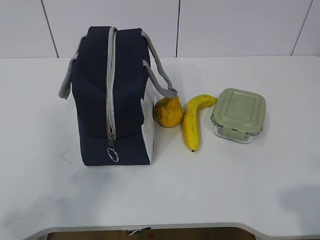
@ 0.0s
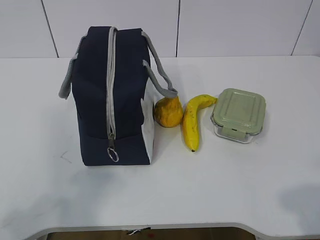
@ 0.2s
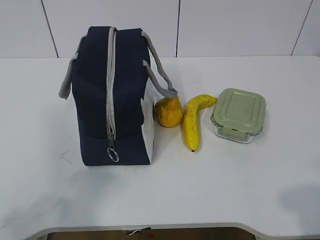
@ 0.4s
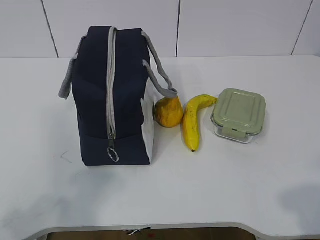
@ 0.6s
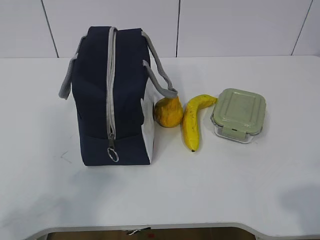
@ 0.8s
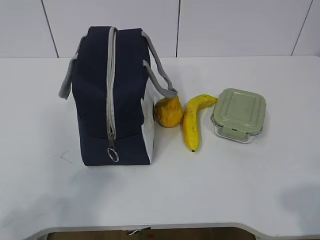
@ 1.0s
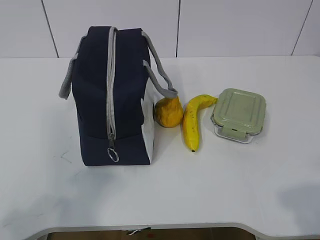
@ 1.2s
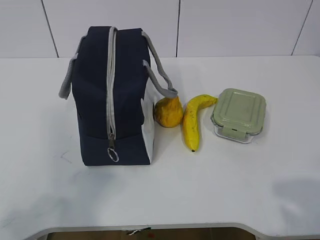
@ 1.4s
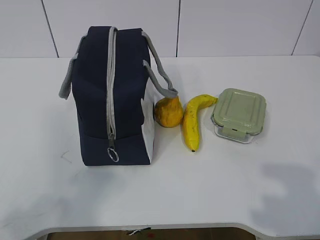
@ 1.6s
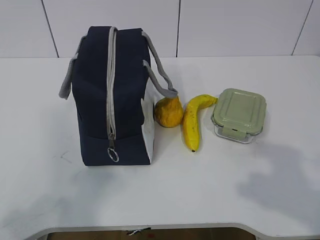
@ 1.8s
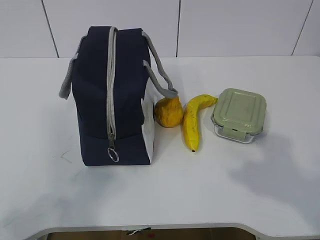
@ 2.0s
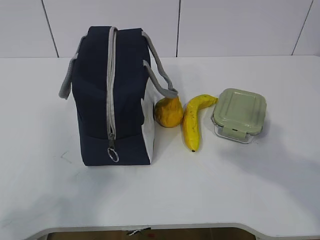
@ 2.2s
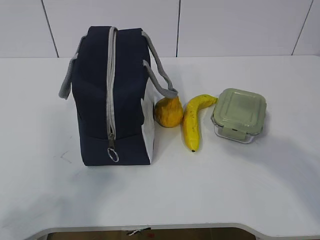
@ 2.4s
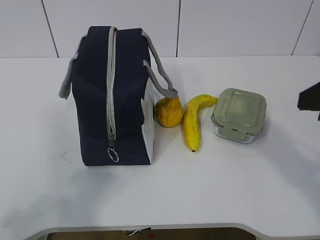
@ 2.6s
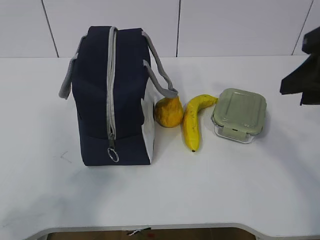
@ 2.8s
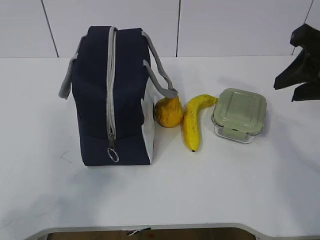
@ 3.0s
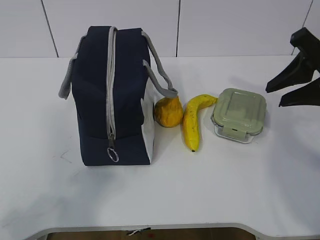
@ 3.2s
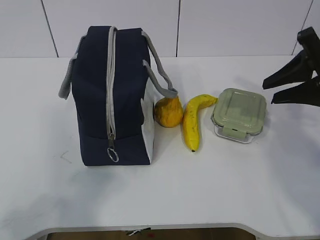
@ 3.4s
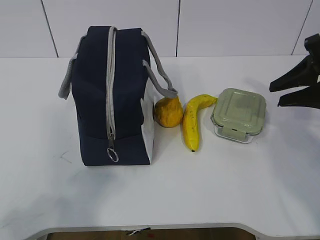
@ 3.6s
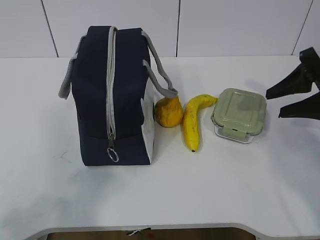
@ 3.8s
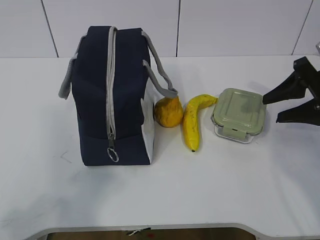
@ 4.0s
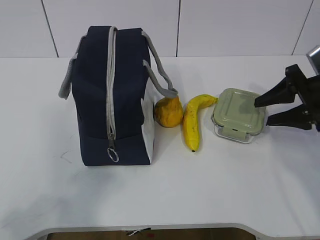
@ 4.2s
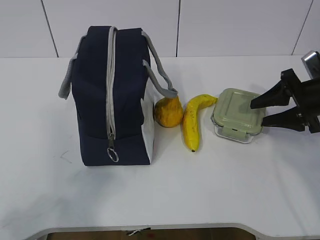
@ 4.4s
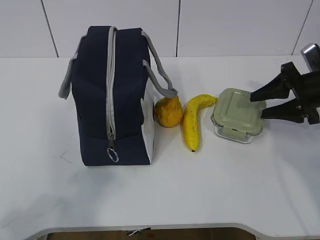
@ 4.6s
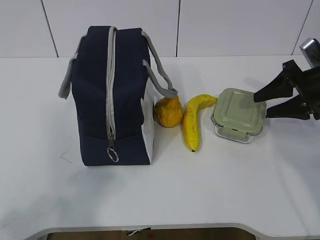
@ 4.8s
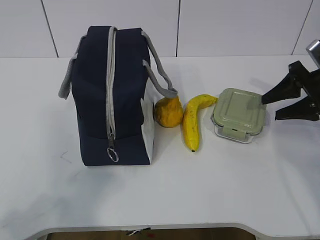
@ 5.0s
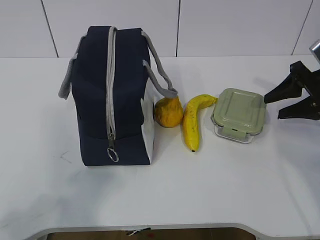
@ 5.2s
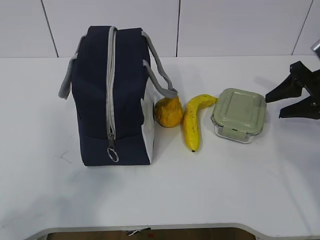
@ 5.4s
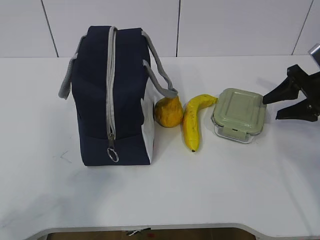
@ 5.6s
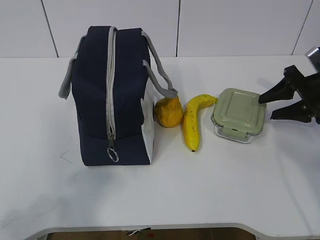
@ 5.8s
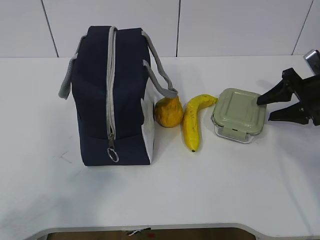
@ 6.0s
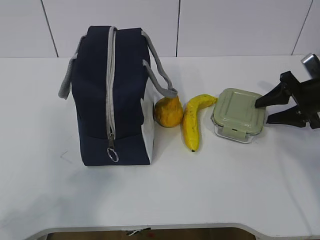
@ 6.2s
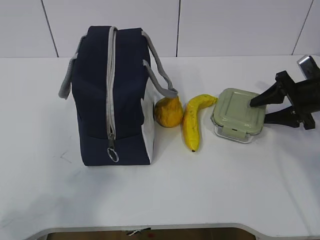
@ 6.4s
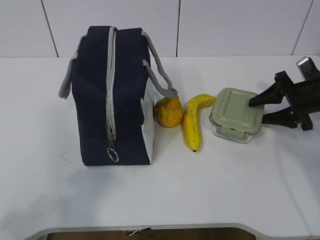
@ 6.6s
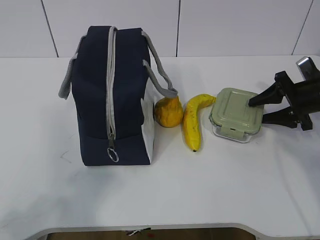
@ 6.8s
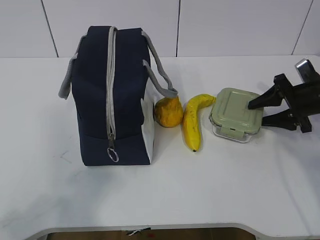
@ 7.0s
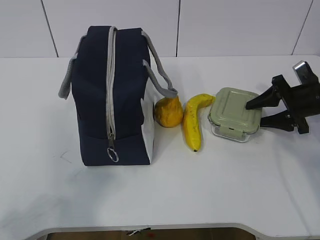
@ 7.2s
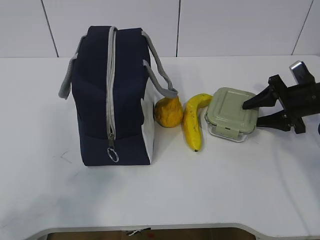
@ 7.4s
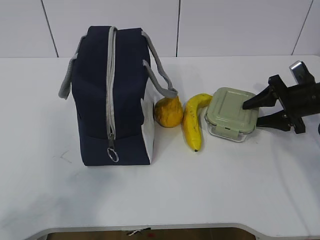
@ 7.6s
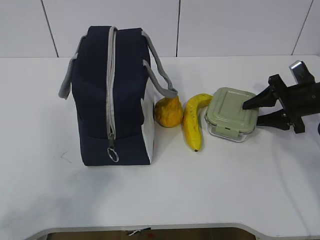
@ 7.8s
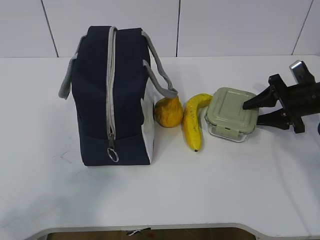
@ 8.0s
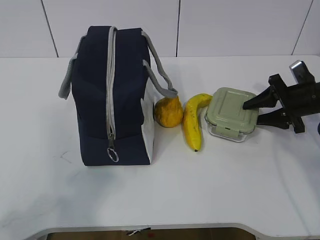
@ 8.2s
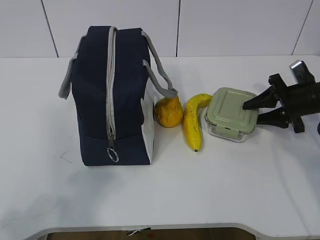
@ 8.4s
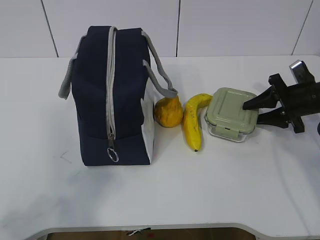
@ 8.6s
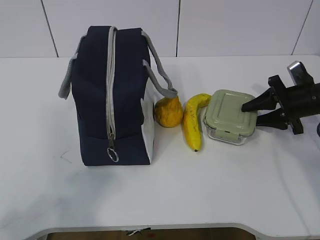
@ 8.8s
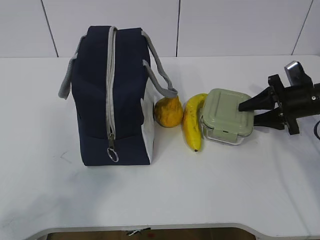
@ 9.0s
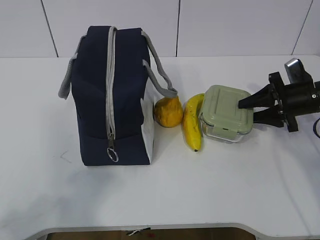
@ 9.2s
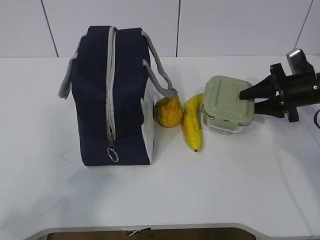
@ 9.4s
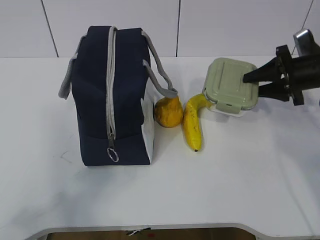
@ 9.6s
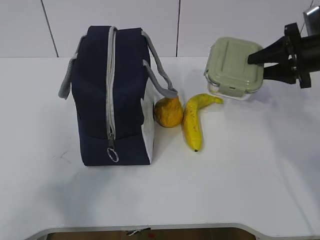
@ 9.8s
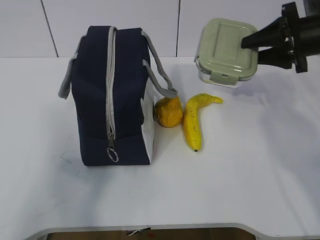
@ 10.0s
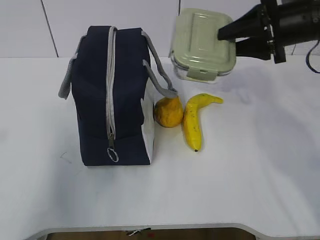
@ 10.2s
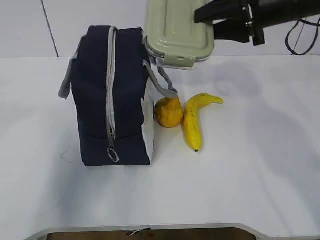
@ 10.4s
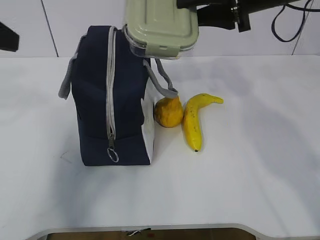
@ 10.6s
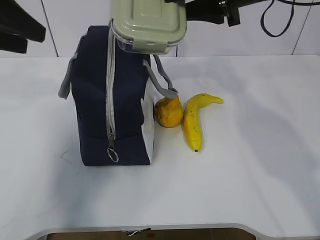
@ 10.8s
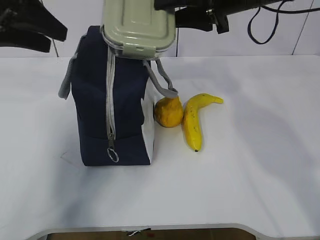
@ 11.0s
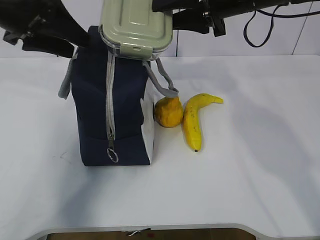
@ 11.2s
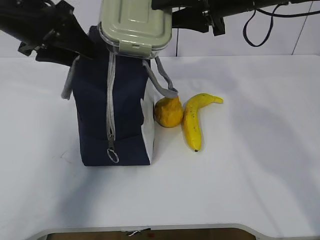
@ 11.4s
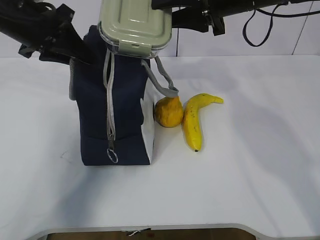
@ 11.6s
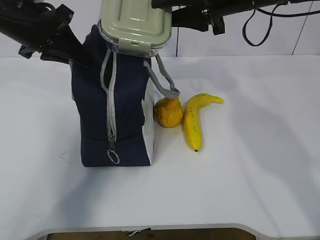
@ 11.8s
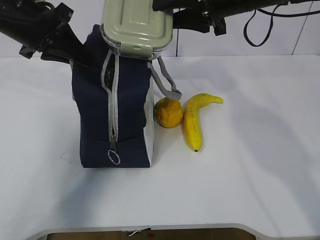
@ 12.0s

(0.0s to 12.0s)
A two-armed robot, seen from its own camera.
Step, 0.0s - 7.2s: Grab the lunch box with your right hand.
Step, 7.4s - 9.8s: Grab the lunch bag with your left hand.
Step, 10.2s - 11.8s: Place it into the bag with your right hand.
1.6s - 3.0s: The right gripper shifts about 25 cm forward.
3.0s - 4.4s: The right gripper heads downward, forward and to the right, covering about 20 cm.
4.4s - 9.0s: The grippers make only small movements.
9.0s - 10.4s: The left gripper shifts approximately 20 cm forward and upward, while the right gripper moves upward and to the left, roughly 20 cm.
10.4s - 12.0s: The left gripper heads forward, covering approximately 20 cm, and closes. Meanwhile the right gripper is displaced to the left by roughly 5 cm.

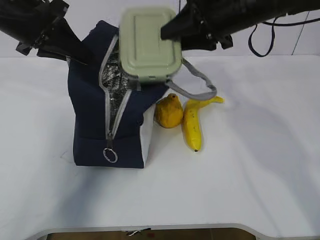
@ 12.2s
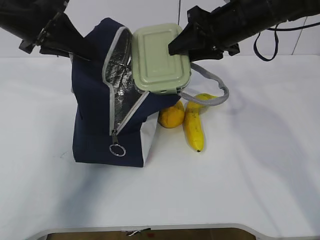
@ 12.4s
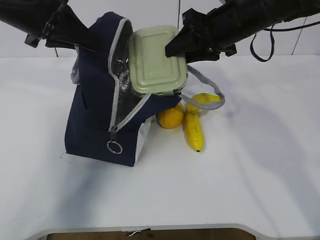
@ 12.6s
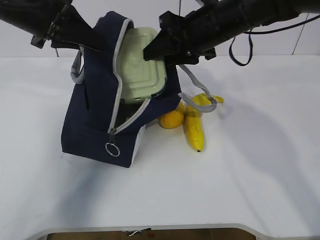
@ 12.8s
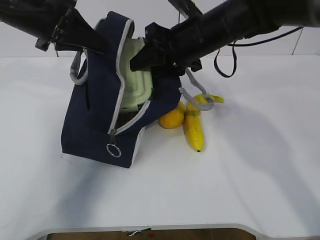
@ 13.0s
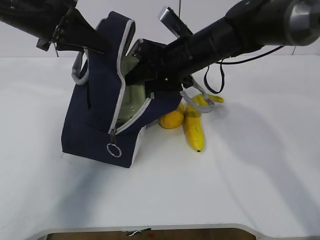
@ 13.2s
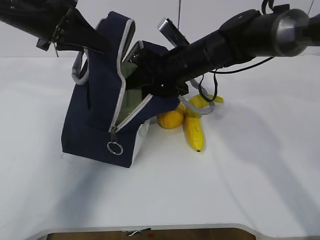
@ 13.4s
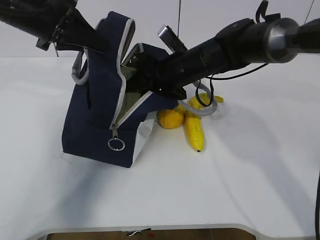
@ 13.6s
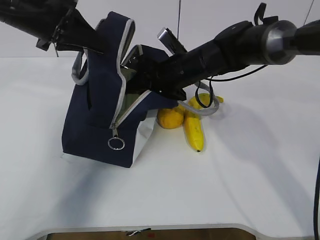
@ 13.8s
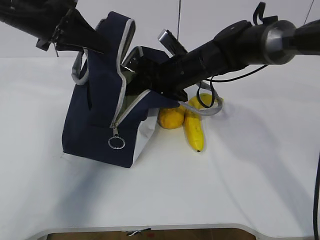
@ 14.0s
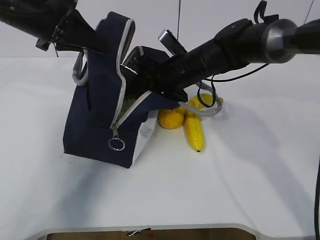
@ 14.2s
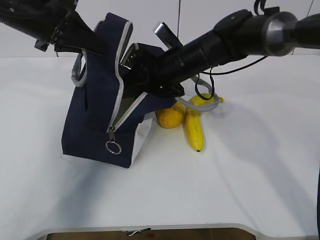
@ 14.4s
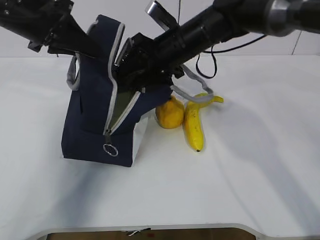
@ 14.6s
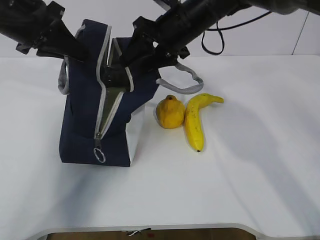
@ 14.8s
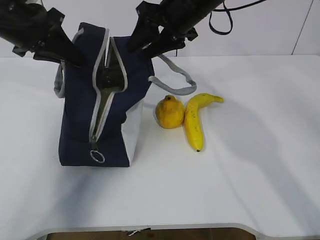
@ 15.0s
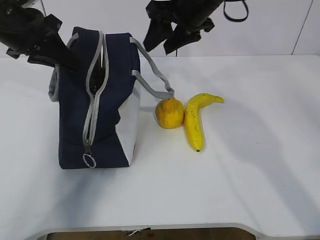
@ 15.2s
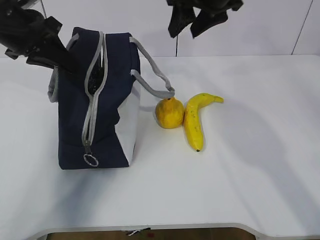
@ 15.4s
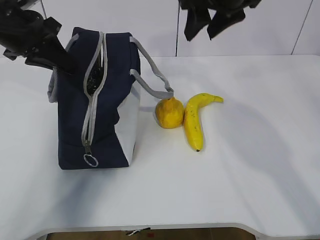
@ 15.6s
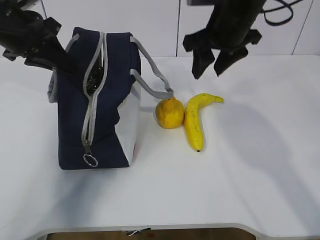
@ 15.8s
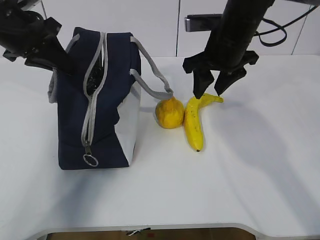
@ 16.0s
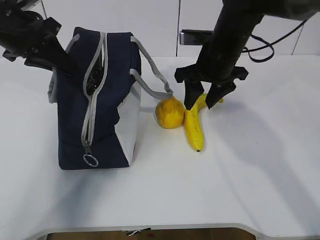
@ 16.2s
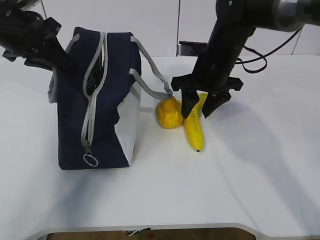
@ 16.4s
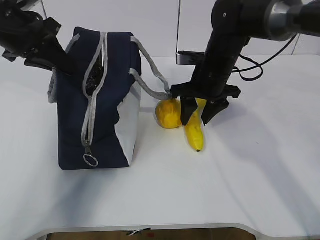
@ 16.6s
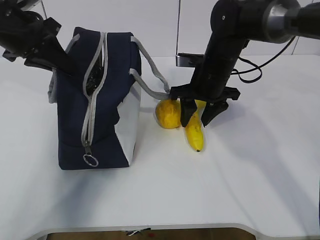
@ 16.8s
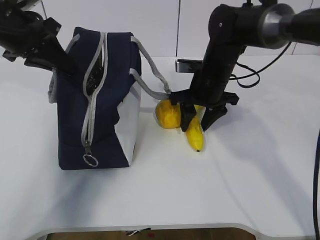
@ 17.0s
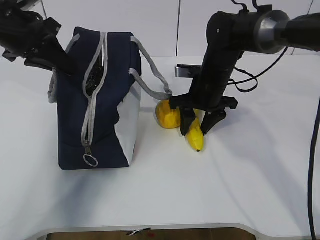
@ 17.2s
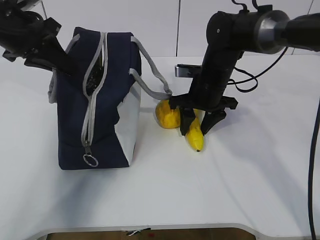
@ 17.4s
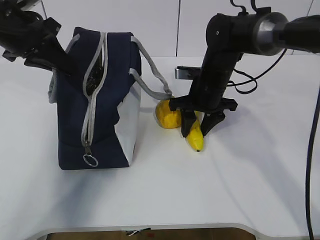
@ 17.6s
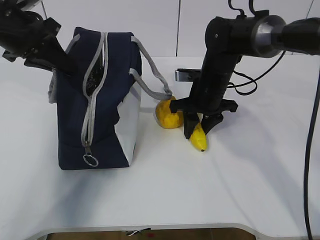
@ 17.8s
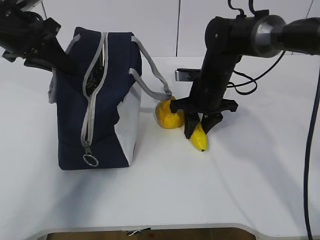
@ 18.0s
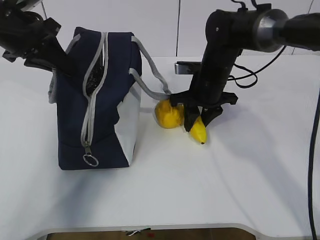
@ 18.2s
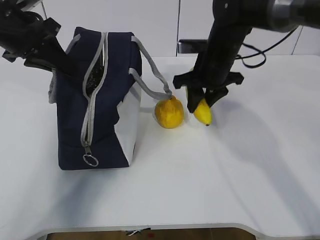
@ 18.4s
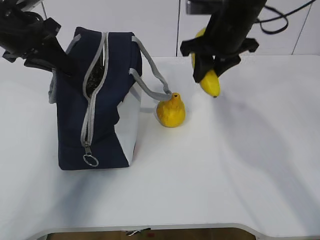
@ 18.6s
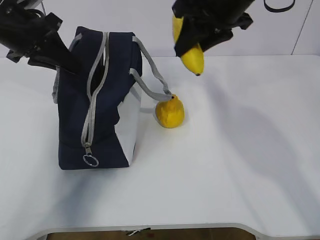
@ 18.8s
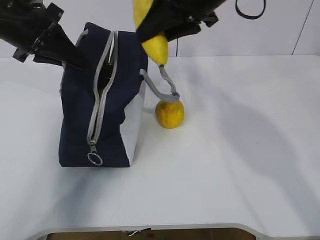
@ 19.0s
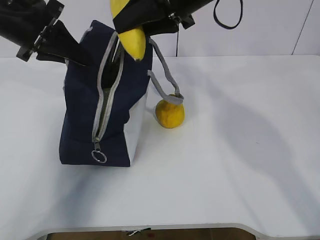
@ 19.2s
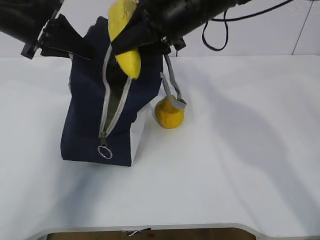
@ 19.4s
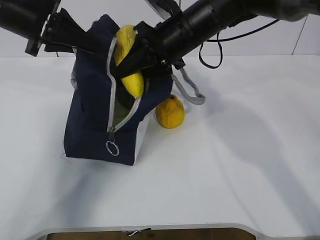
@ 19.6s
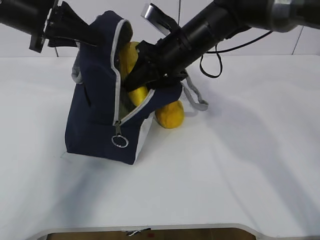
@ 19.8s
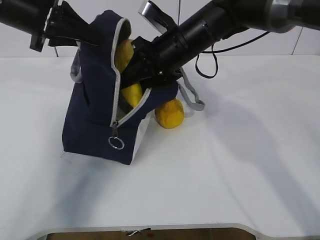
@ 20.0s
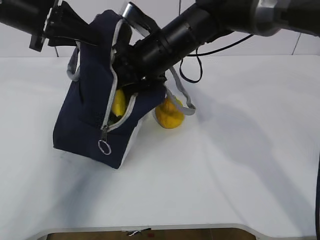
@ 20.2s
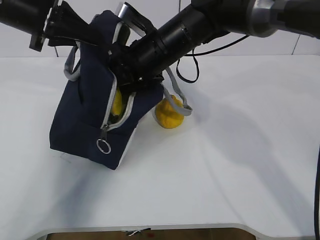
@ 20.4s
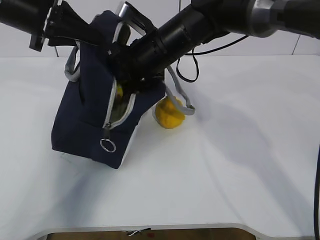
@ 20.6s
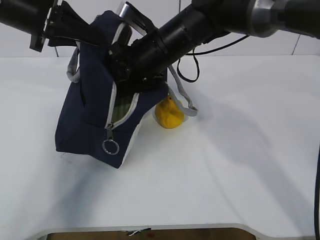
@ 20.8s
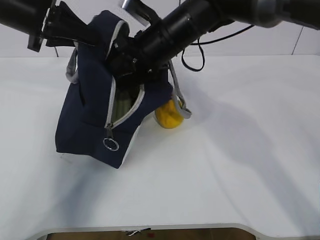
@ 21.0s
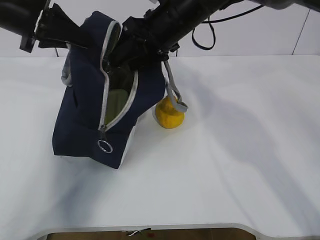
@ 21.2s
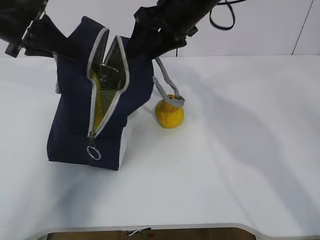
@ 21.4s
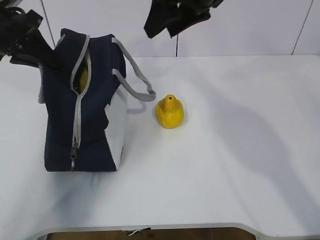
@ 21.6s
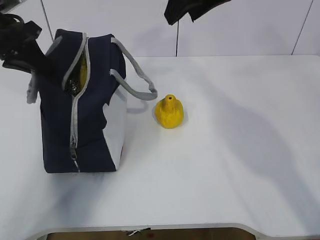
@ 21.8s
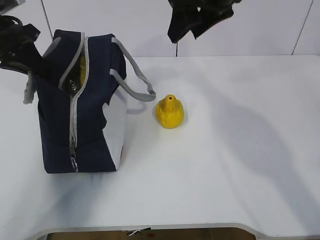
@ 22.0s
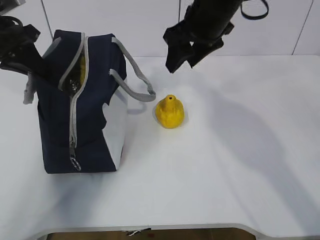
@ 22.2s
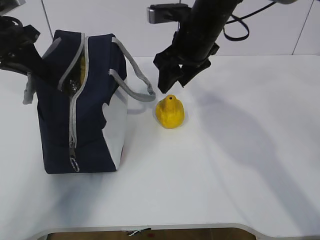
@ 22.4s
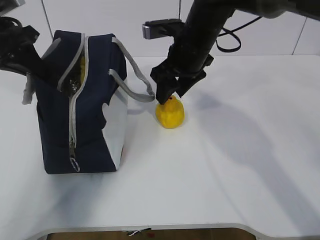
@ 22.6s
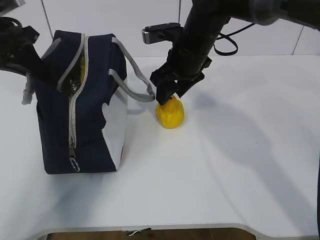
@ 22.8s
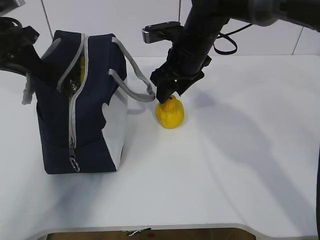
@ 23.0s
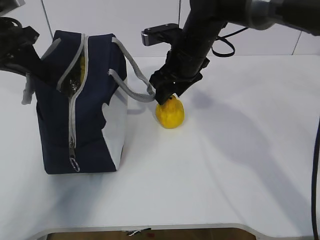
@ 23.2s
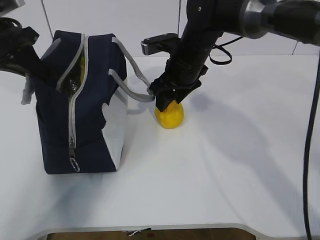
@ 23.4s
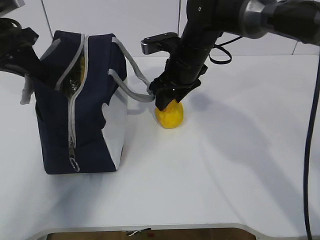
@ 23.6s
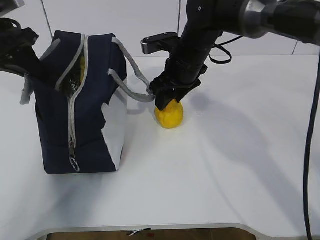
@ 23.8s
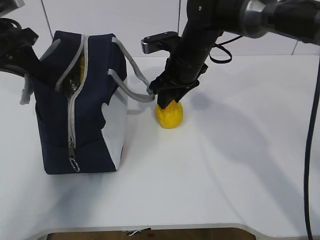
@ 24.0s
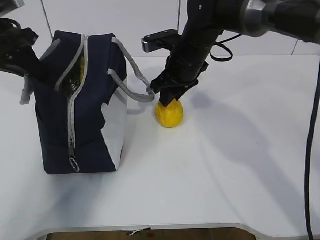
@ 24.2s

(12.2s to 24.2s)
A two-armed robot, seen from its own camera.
Step, 12.2s - 14.8s: Grab the banana with your right hand.
Step, 15.2s - 17.0s: Place it into the bag with your right hand.
Step, 17.4s - 20.2s: Grab the pear with your right hand.
Step, 20.4s - 22.4s: Secure the lunch bag with your left hand.
Step, 22.6s - 23.4s: Grab the lunch bag with your right hand.
12.2s - 13.8s: The right gripper is displaced downward and to the left by approximately 15 cm.
13.8s - 15.2s: The right gripper travels upward by some 15 cm.
15.2s - 16.6s: The right gripper moves downward, about 10 cm.
16.6s - 18.2s: The grippers stay close to where they were, moving slightly.
18.2s - 19.8s: The right gripper heads upward and to the left, covering about 10 cm.
19.8s - 21.2s: The right gripper opens its fingers.
21.2s - 22.6s: The right gripper travels upward and back again, approximately 10 cm each way, while the left gripper changes place by roughly 5 cm.
22.6s - 24.2s: The right gripper closes its fingers.
